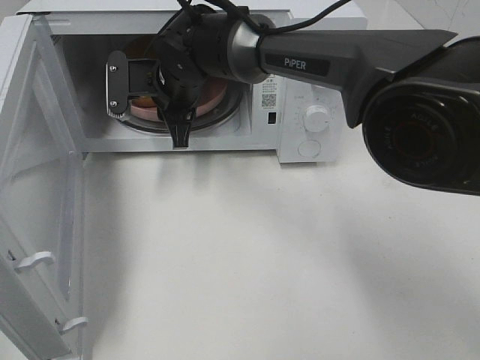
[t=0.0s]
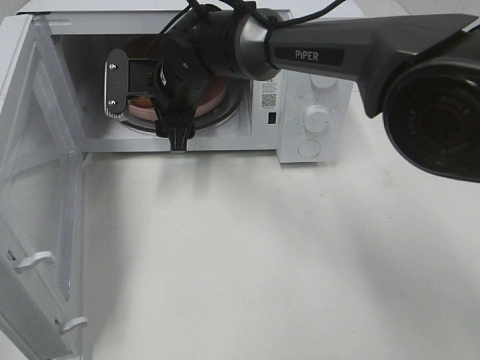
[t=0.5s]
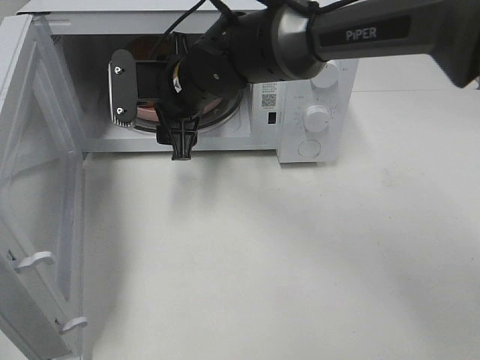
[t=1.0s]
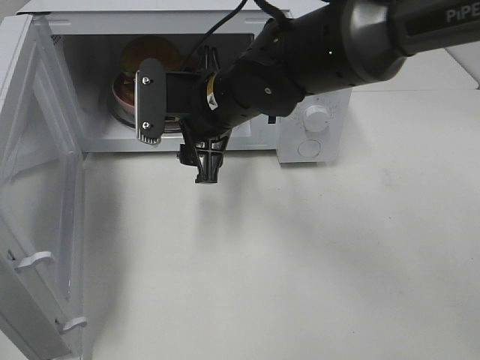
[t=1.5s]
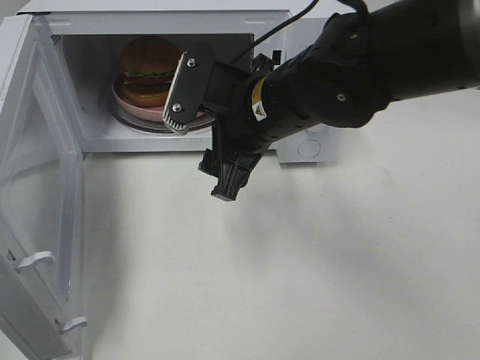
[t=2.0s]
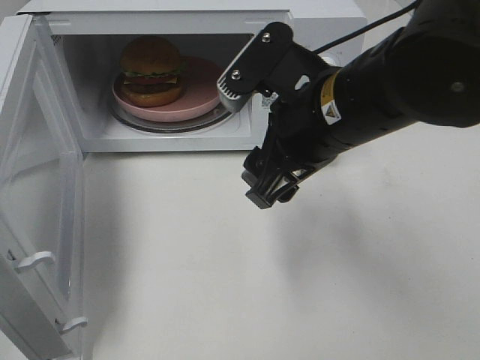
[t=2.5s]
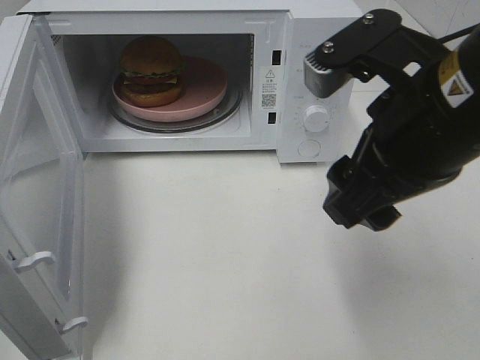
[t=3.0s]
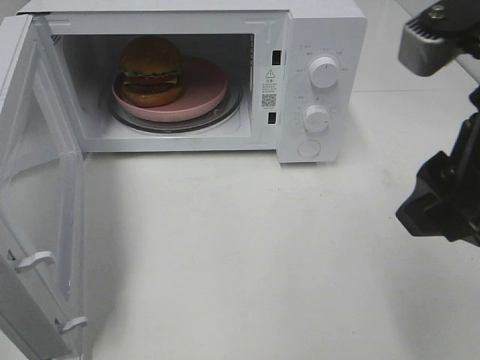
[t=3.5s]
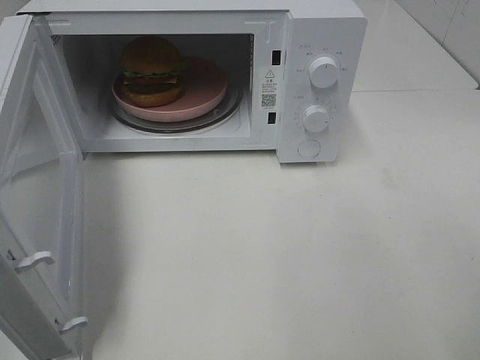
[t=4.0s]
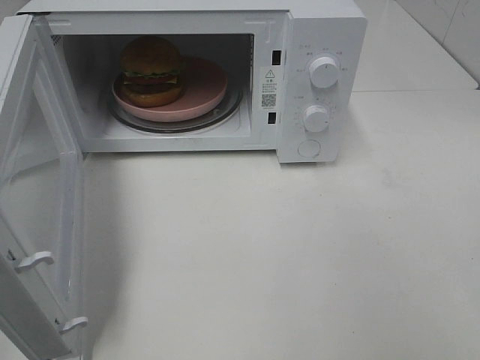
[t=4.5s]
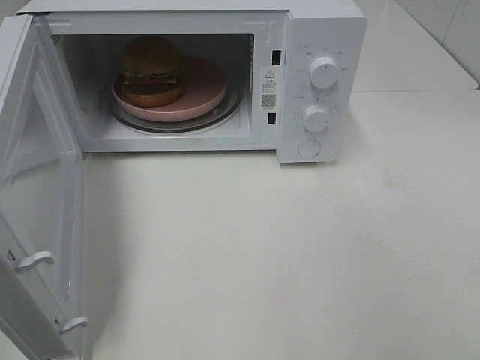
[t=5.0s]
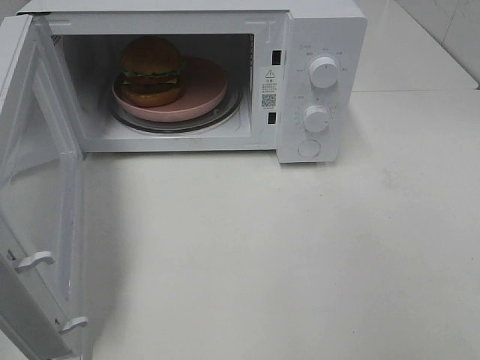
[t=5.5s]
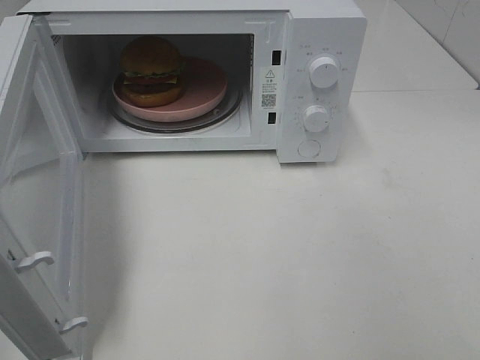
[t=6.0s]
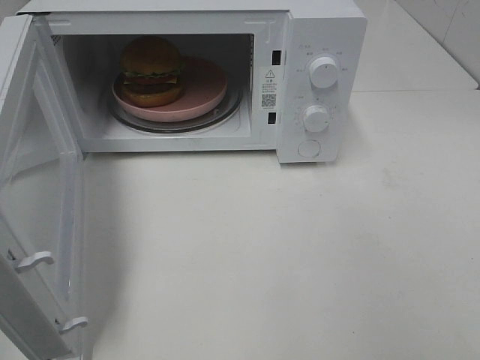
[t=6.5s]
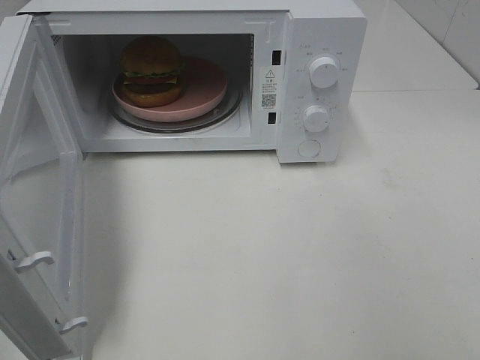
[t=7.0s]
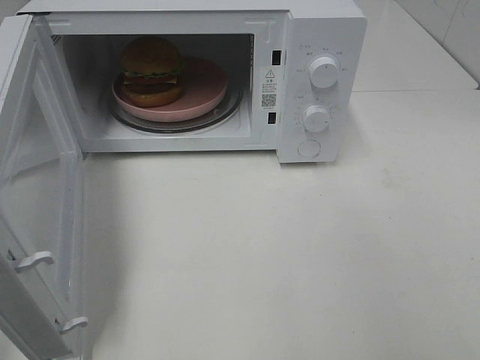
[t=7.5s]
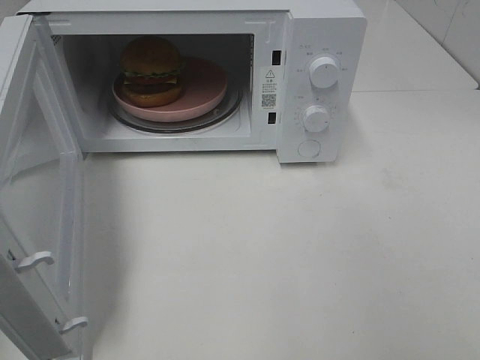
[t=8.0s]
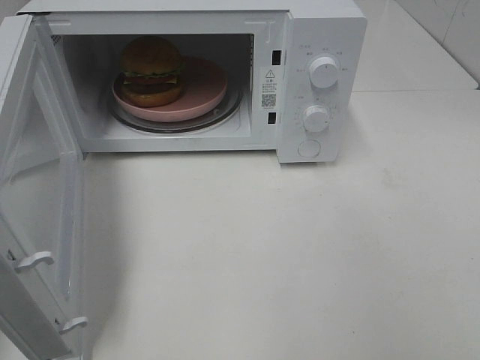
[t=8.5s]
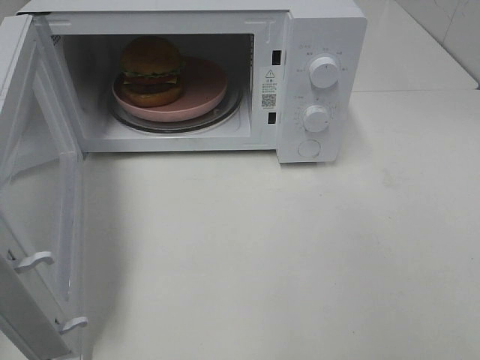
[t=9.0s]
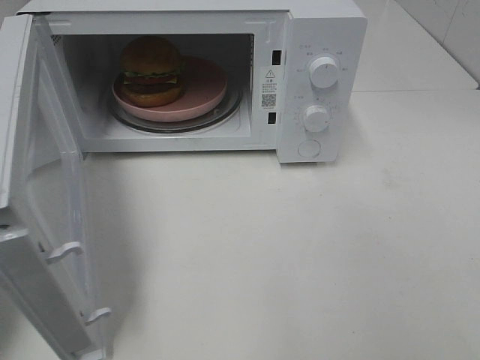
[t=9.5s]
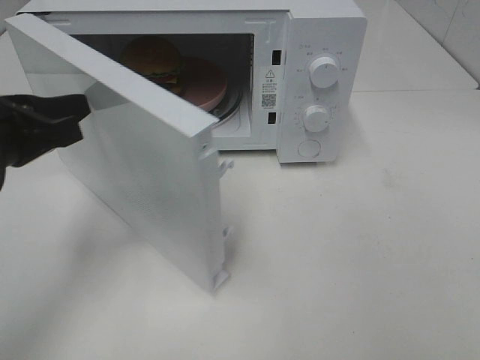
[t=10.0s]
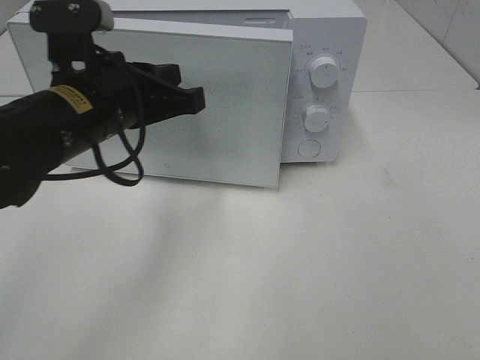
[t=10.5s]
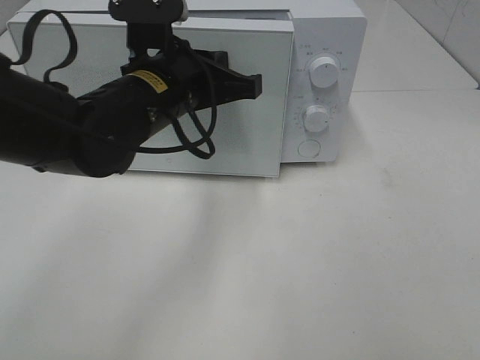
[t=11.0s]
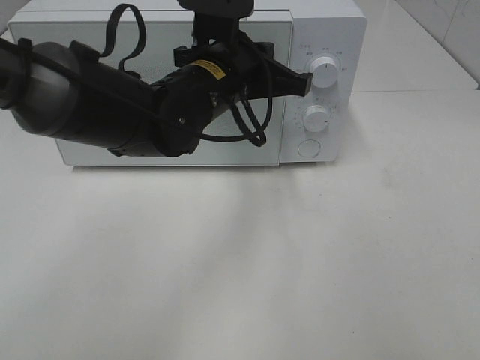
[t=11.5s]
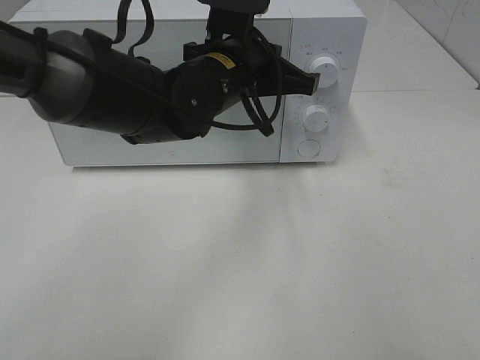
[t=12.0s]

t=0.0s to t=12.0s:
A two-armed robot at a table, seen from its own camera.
Task of the whole recording: Heat the burger.
t=0.0s to t=2.0s: The right gripper travels backward and to the right by approximately 15 cm, and opens its fingers.
t=2.0s to t=4.0s: The right gripper shifts some 25 cm to the right and backward.
t=8.0s to t=10.0s: The left gripper goes approximately 20 cm forward, to the right and downward.
t=10.0s to t=12.0s: The left gripper heads to the right and forward, covering about 25 cm.

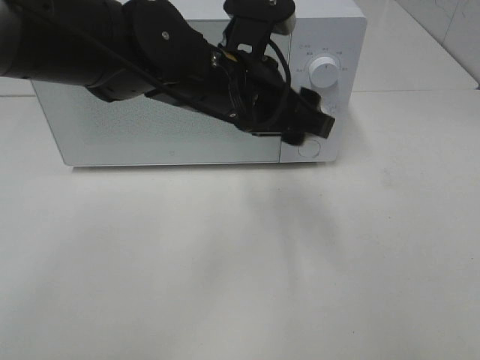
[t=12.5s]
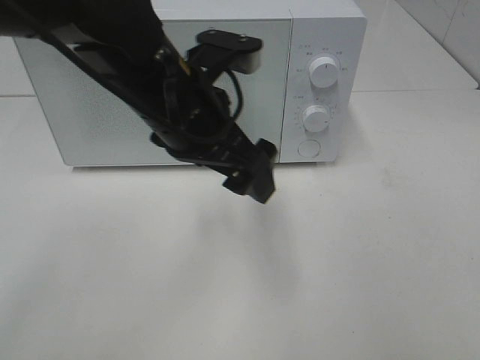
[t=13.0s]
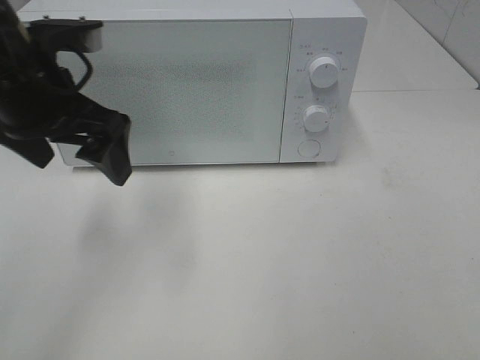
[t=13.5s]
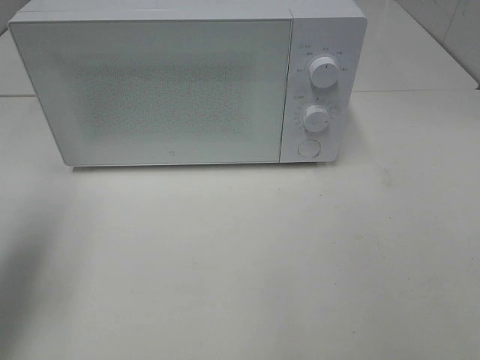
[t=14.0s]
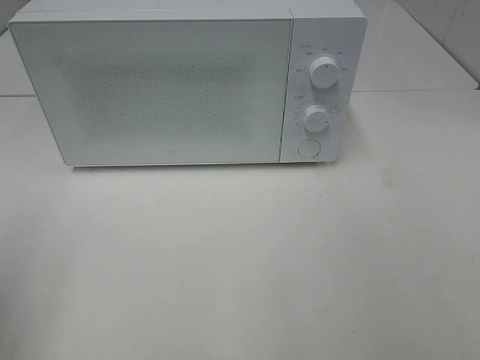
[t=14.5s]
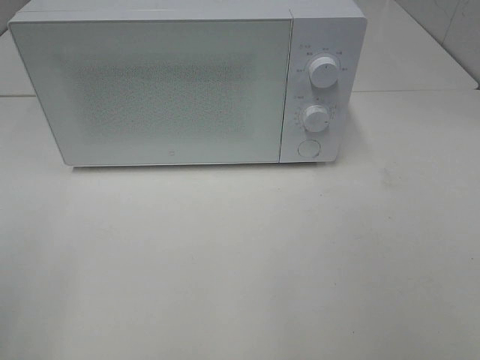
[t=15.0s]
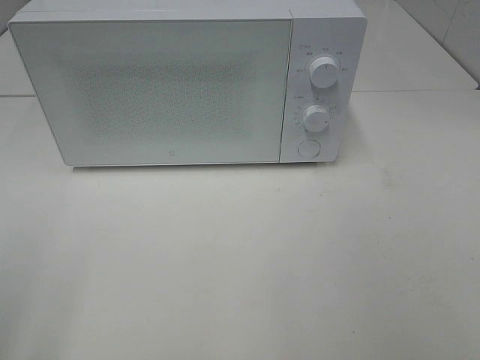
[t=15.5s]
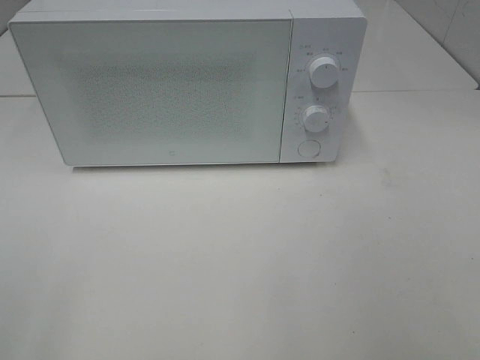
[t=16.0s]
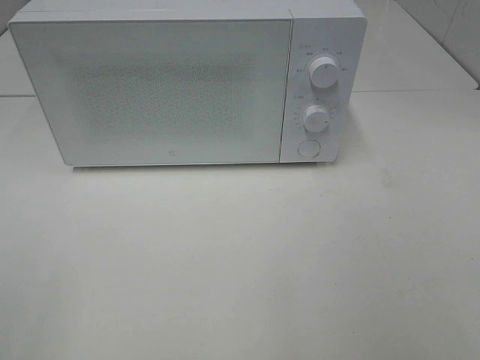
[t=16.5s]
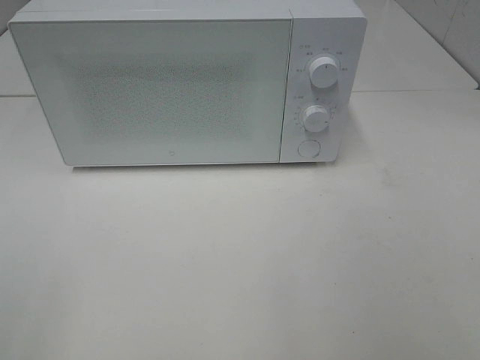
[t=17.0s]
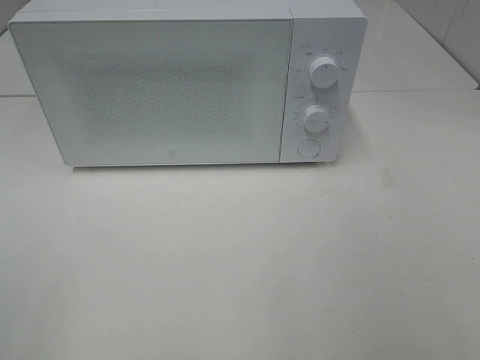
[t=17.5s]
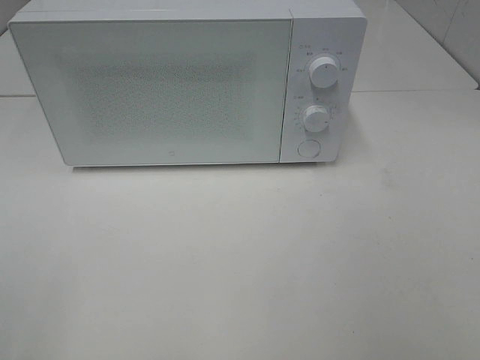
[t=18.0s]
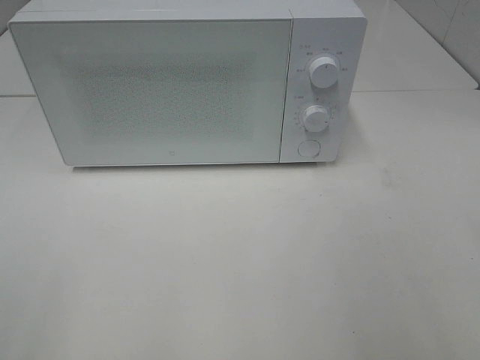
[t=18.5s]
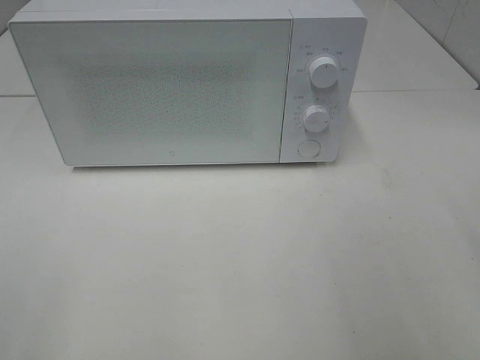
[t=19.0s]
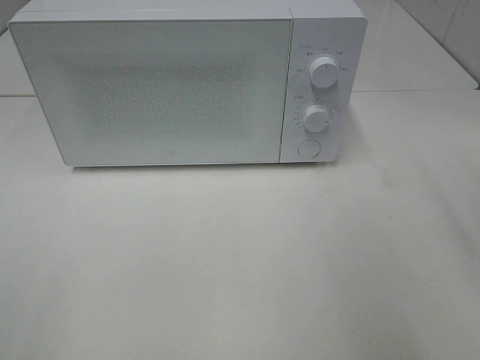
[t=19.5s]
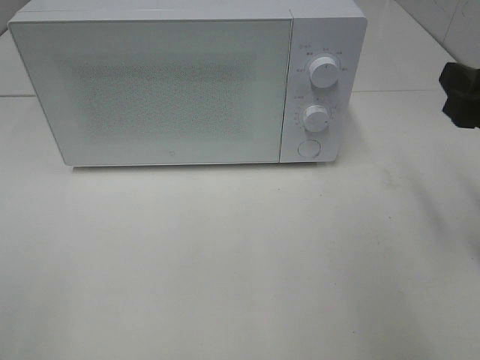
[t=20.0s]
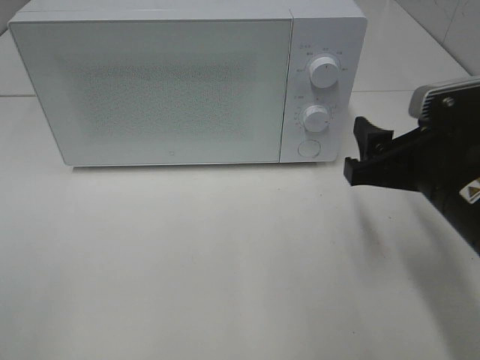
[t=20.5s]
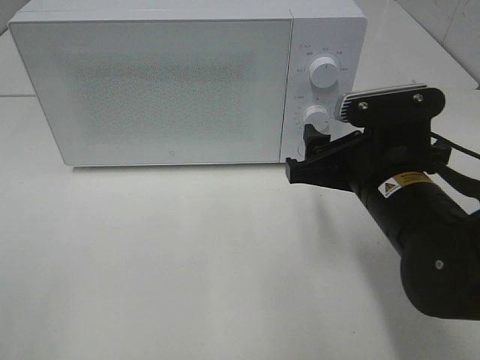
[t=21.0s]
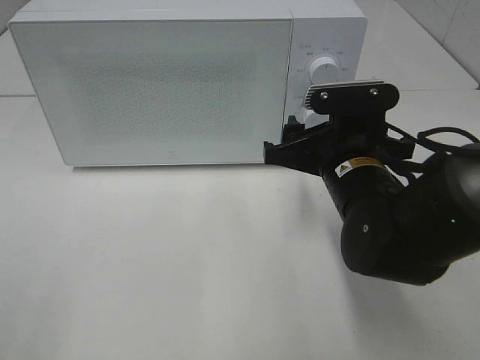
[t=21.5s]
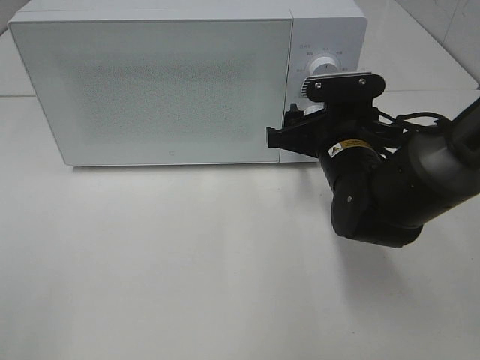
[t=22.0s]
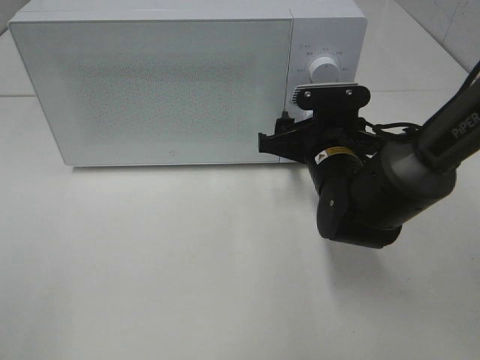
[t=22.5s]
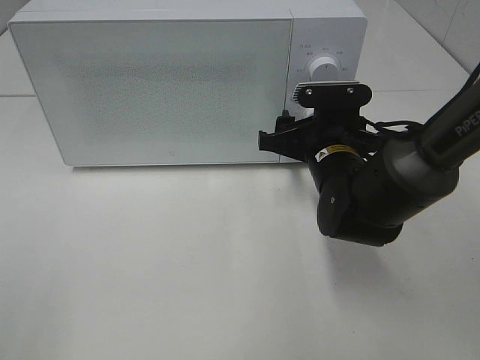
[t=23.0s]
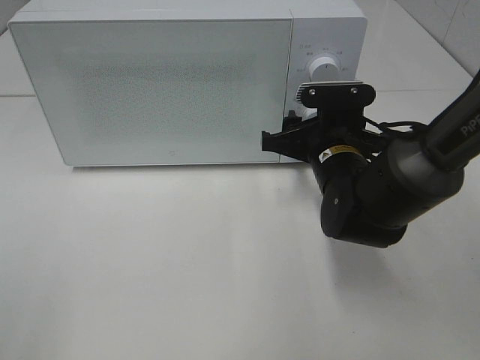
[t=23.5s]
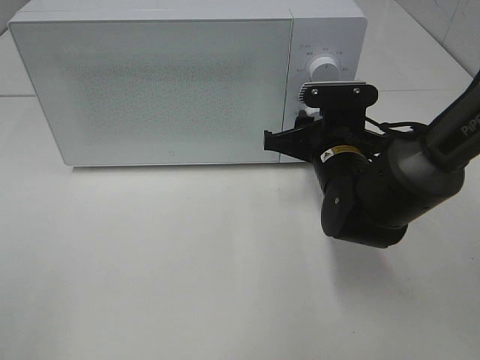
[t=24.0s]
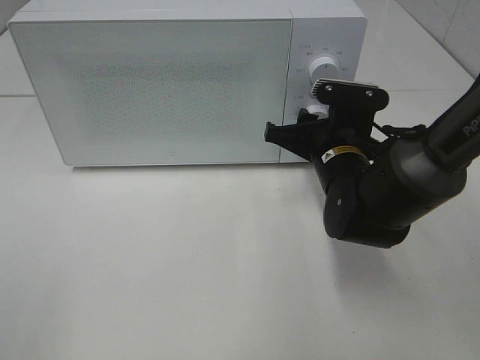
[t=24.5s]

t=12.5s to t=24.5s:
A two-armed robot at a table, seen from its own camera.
Task of the whole recording: Heat the burger.
t=12.5s to t=14.5s: The left gripper goes approximately 35 cm to the left and backward.
t=18.5s to t=20.5s: The right gripper goes about 20 cm forward, downward and to the left.
t=20.5s to t=22.5s: The right gripper goes approximately 15 cm forward, to the left and downward.
t=22.5s to t=24.5s: The grippers move only a little.

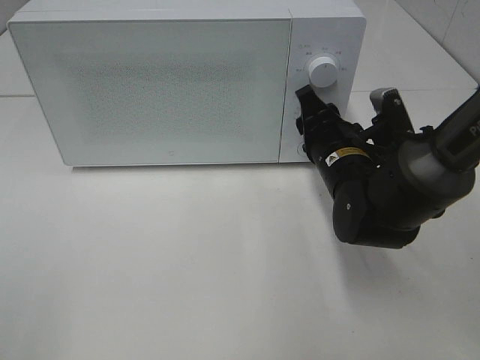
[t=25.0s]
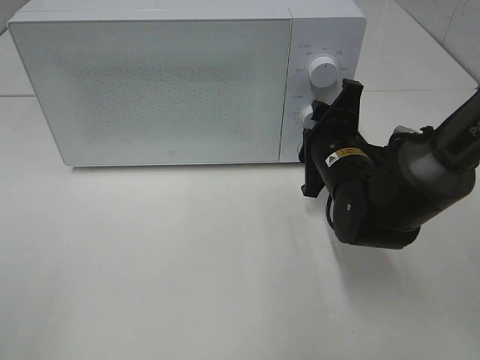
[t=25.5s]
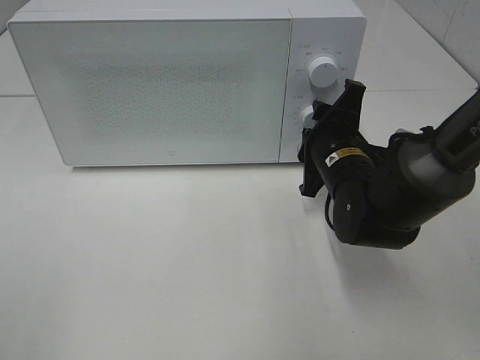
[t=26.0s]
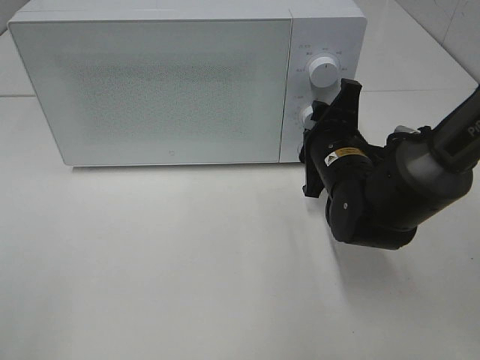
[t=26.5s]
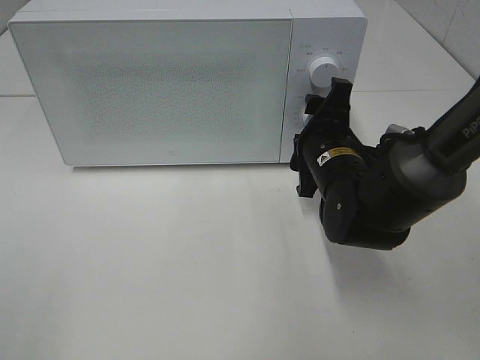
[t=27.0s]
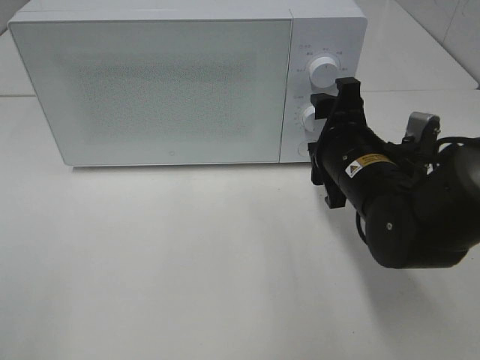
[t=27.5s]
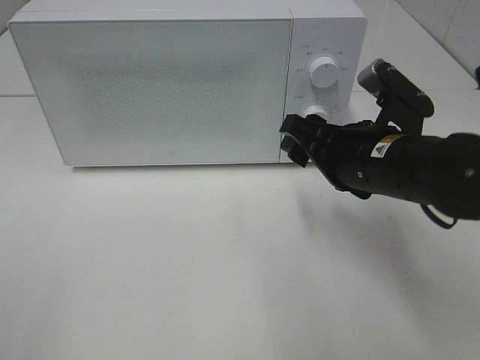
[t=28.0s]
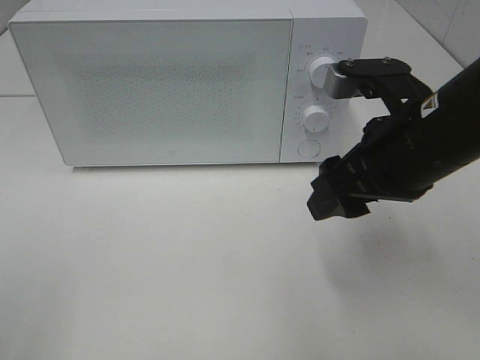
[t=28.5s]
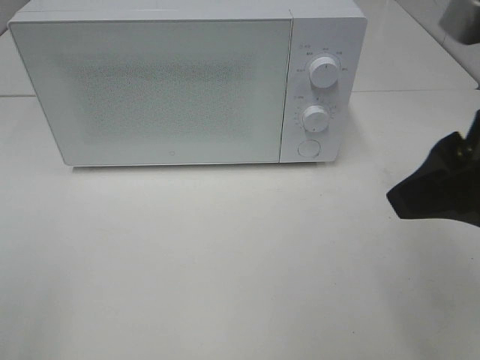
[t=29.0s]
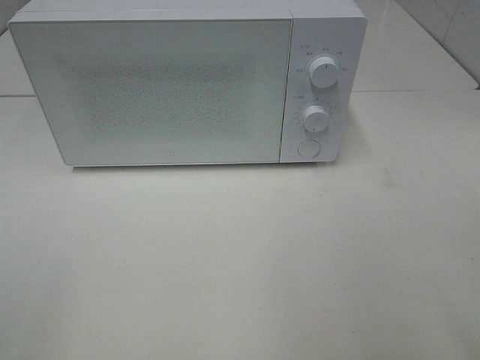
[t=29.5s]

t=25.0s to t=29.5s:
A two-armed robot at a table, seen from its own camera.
Task of the whole recording: Heat the burger.
t=27.0s to t=29.5s: The right gripper goes about 35 cm backward, upward and to the right.
